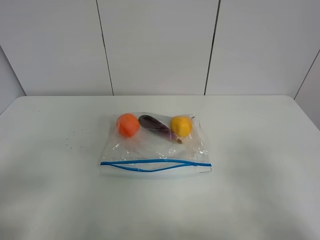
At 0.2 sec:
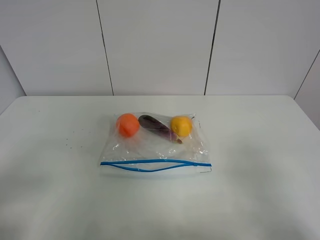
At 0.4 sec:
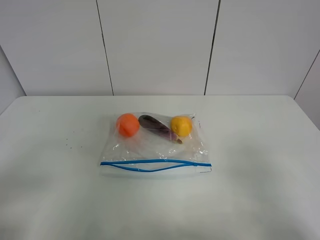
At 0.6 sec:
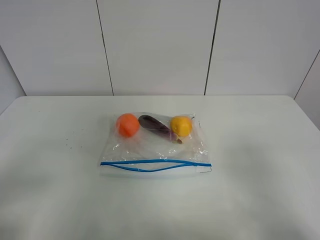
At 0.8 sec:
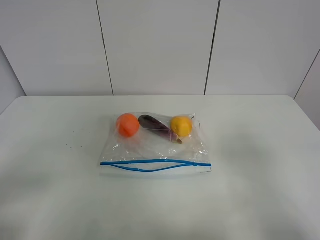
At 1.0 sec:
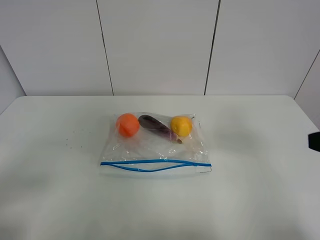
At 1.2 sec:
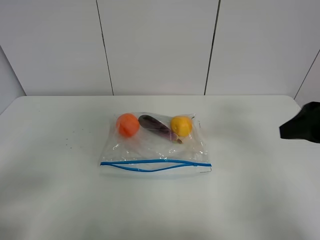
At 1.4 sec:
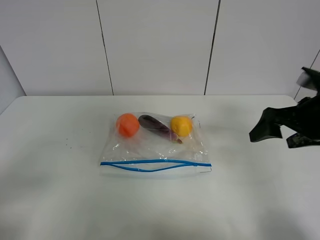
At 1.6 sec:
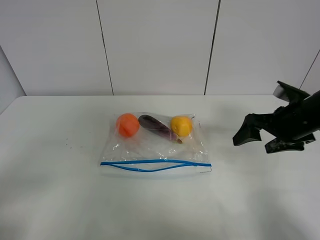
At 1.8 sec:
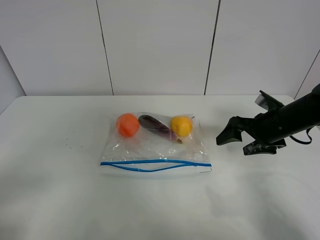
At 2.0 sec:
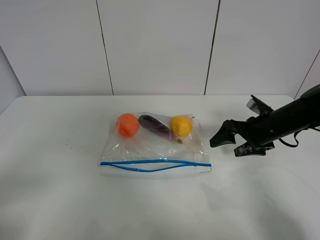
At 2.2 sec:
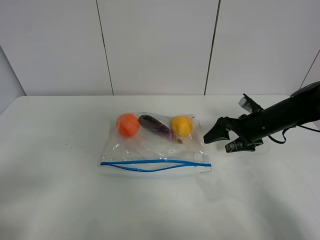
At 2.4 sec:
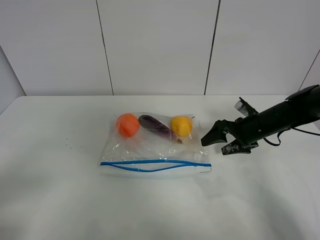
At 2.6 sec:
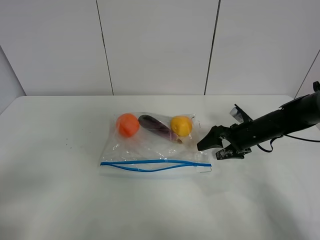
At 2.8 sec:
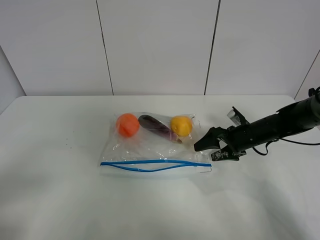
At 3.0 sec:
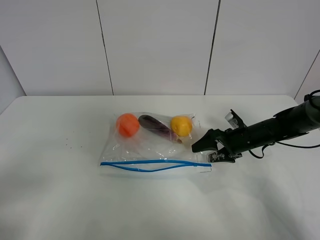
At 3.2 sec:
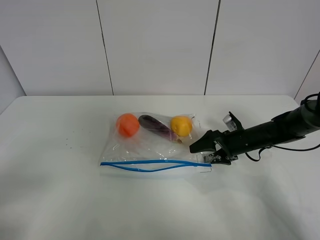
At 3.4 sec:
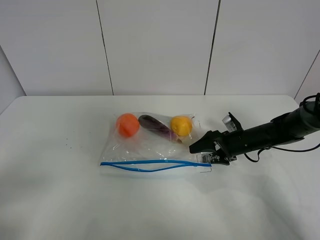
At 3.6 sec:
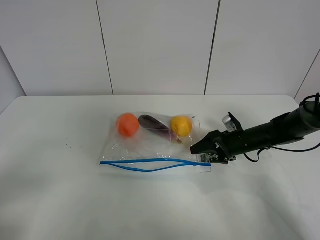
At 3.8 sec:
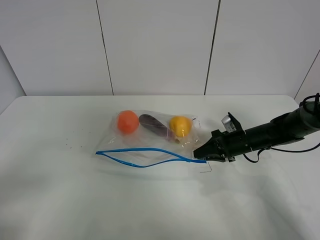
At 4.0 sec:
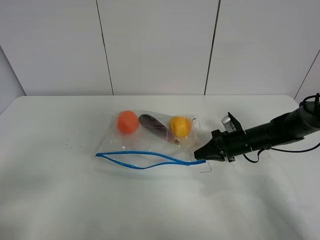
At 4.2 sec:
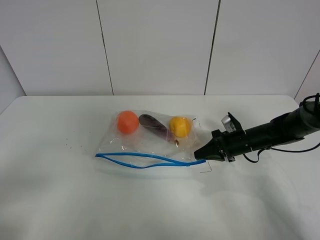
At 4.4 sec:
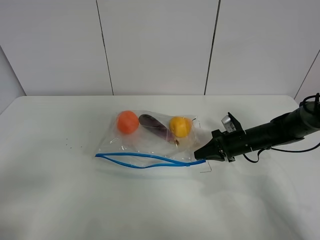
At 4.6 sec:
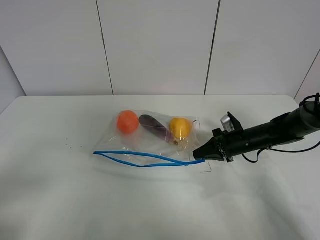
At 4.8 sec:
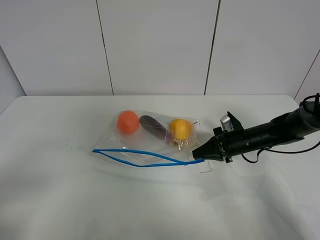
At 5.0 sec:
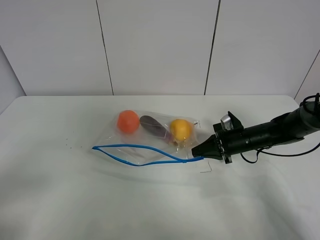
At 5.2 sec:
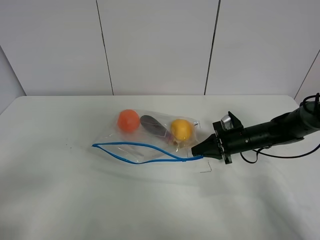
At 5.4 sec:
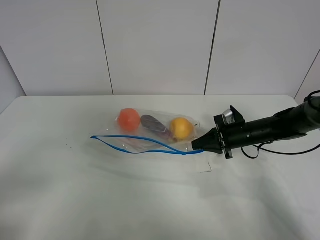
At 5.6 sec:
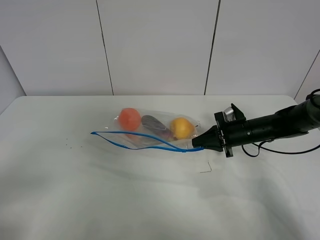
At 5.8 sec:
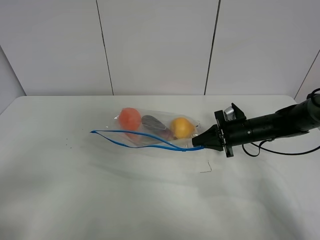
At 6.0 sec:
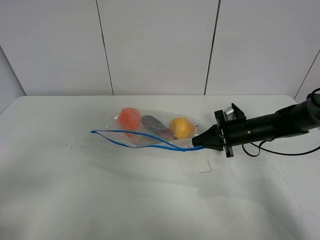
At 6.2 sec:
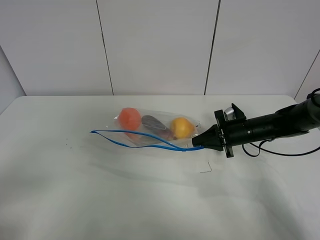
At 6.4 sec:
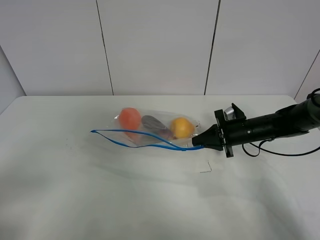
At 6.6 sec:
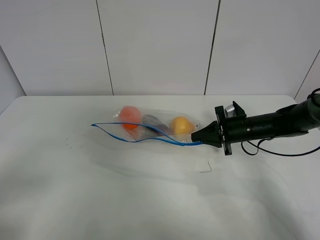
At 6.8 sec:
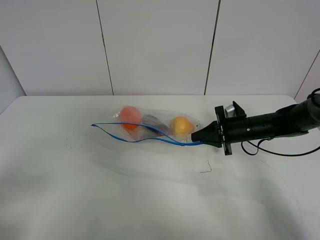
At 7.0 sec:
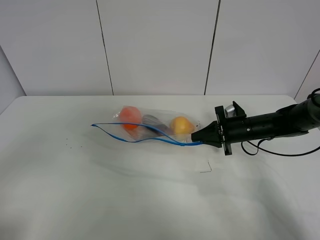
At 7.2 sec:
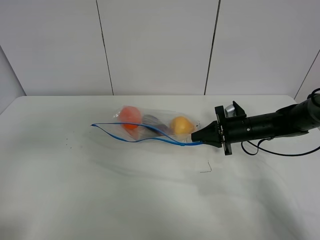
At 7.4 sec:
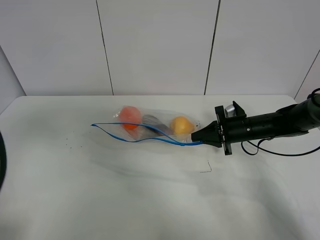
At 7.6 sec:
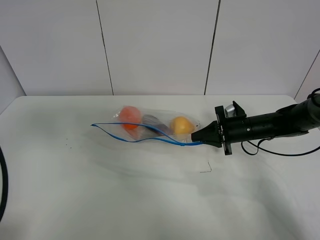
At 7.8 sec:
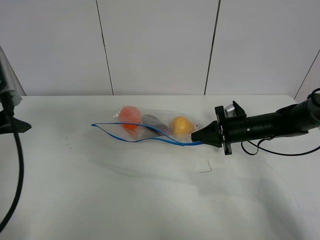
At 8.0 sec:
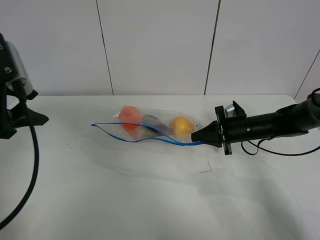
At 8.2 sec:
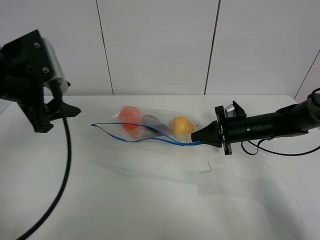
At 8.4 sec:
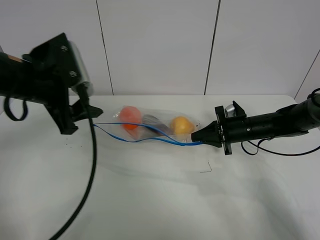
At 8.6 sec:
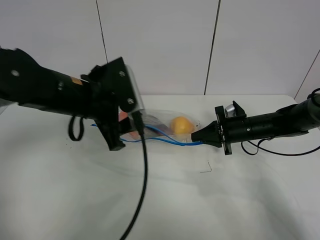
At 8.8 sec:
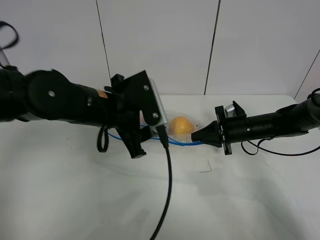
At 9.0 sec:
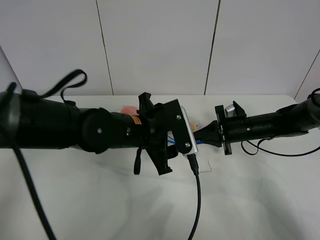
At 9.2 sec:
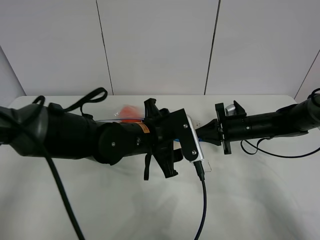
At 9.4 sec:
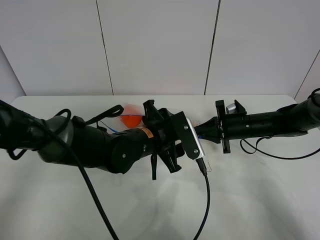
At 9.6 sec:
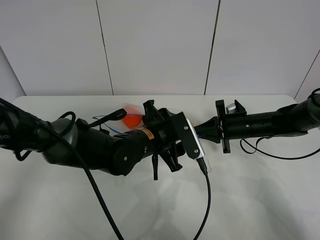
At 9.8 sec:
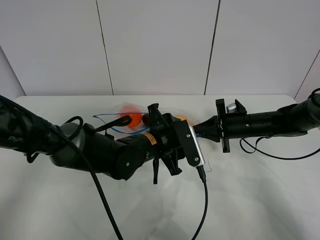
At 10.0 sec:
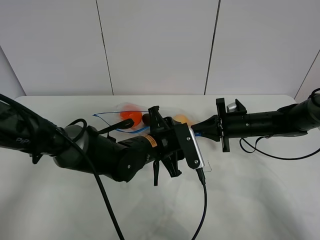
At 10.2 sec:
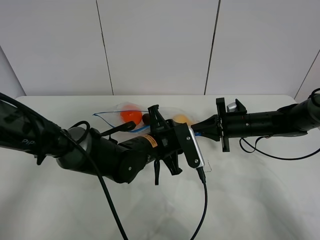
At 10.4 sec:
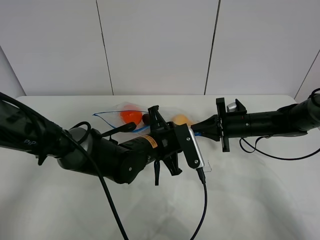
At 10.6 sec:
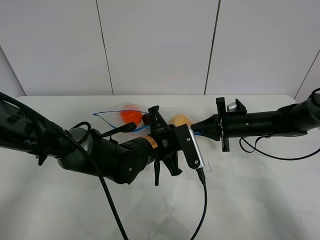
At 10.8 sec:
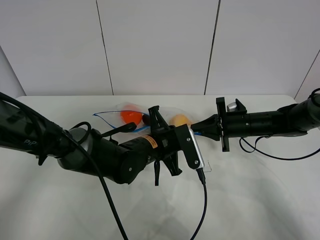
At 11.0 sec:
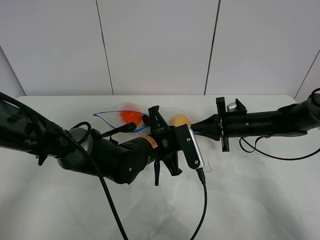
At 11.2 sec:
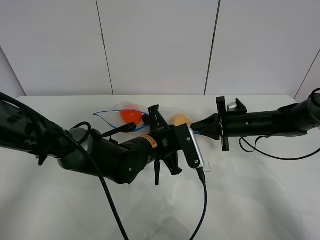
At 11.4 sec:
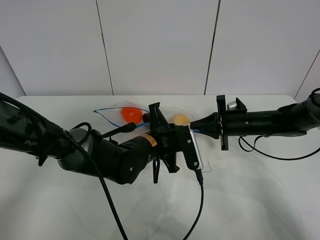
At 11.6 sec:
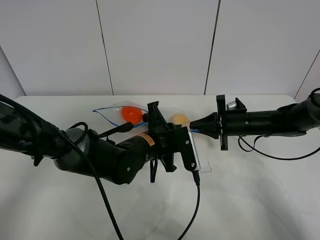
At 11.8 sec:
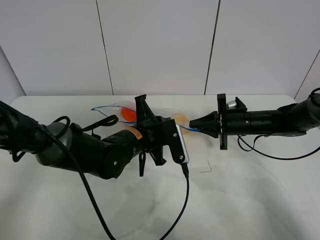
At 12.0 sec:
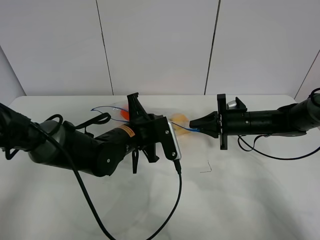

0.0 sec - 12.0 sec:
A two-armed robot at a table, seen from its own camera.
Step, 0.0 sec - 4.0 sec: Grasp the fruit bag with right gripper.
Step, 4.2 sec - 5.6 sec: Lift the fruit bag with your right gripper.
0.0 sec - 1.6 sec: The right gripper moves forward, roughly 25 cm.
1.6 sec - 3.0 sec: The right gripper heads downward and forward, covering approximately 15 cm.
3.0 sec - 4.4 sec: The right gripper closes its fingers.
4.4 sec - 6.0 sec: The grippers make only small movements.
6.0 sec - 7.6 sec: The left gripper is displaced forward by some 20 cm.
7.6 sec - 9.0 sec: The left gripper goes about 30 cm to the right and downward.
9.0 sec - 10.4 sec: The left gripper goes some 5 cm downward, and closes its fingers.
10.4 sec - 12.0 sec: The left gripper moves to the left, roughly 5 cm.

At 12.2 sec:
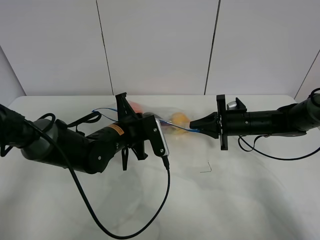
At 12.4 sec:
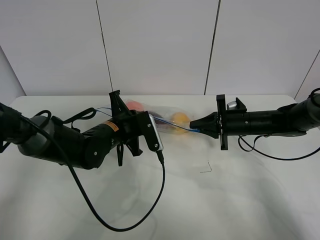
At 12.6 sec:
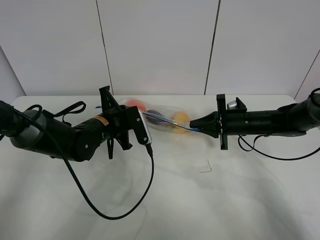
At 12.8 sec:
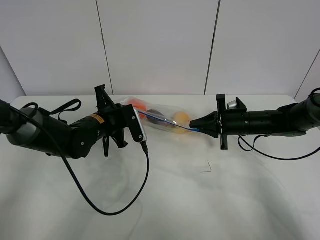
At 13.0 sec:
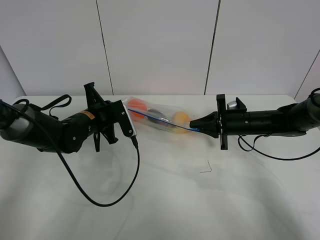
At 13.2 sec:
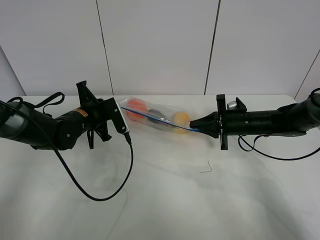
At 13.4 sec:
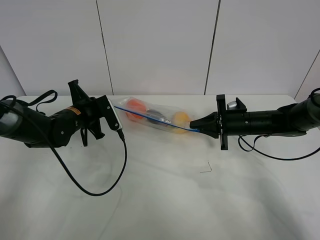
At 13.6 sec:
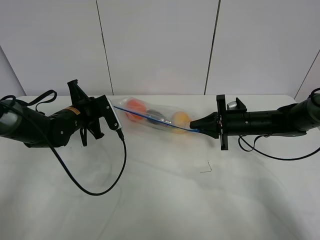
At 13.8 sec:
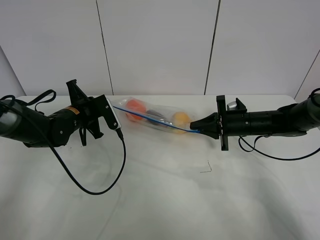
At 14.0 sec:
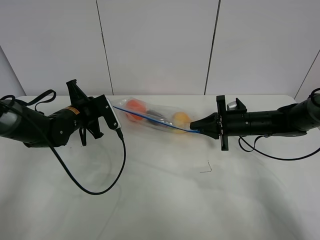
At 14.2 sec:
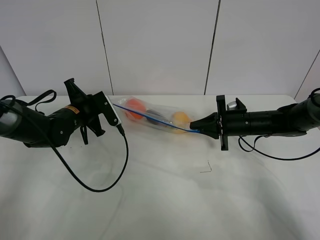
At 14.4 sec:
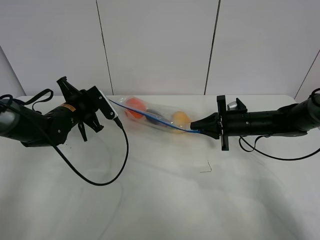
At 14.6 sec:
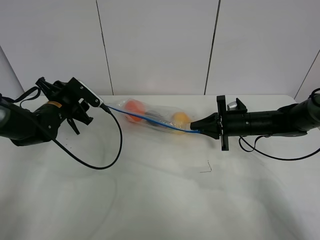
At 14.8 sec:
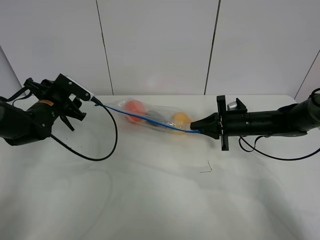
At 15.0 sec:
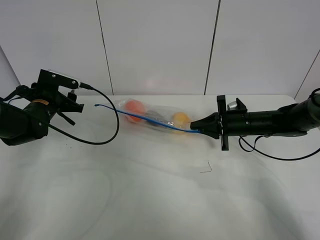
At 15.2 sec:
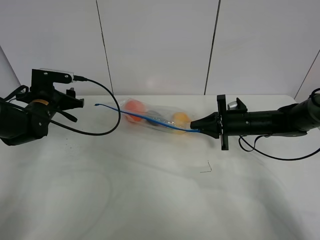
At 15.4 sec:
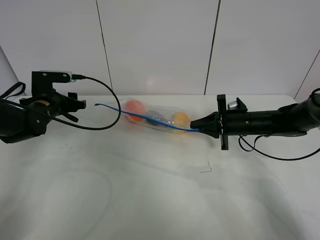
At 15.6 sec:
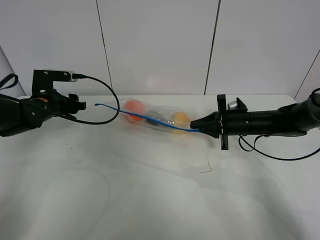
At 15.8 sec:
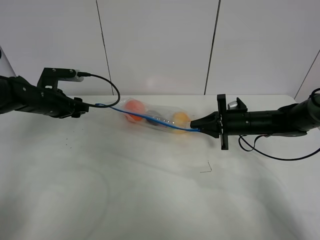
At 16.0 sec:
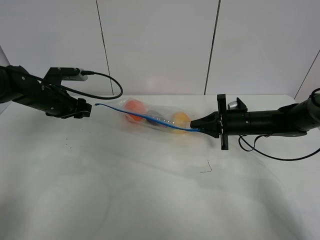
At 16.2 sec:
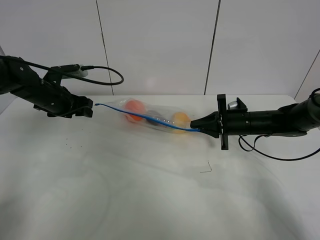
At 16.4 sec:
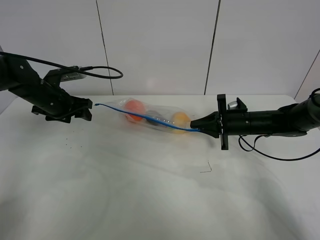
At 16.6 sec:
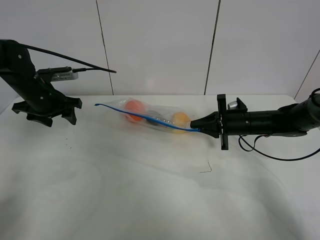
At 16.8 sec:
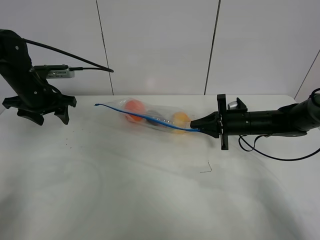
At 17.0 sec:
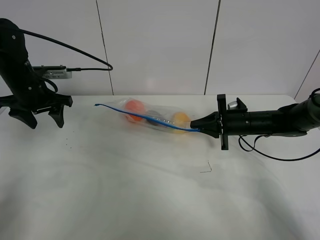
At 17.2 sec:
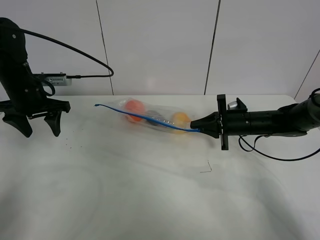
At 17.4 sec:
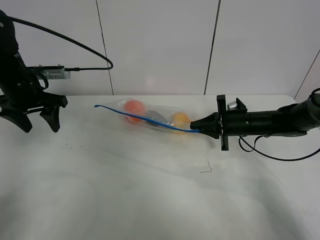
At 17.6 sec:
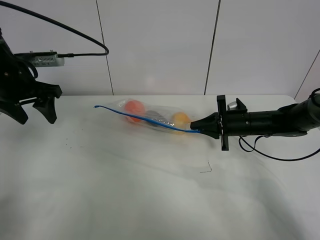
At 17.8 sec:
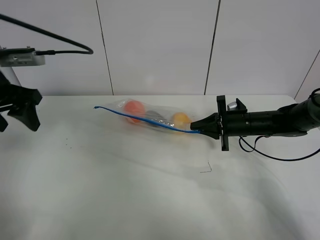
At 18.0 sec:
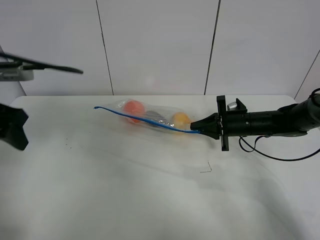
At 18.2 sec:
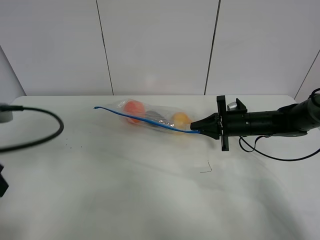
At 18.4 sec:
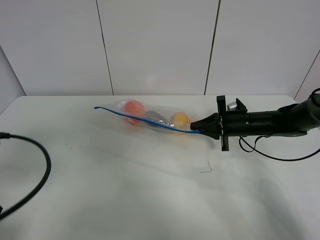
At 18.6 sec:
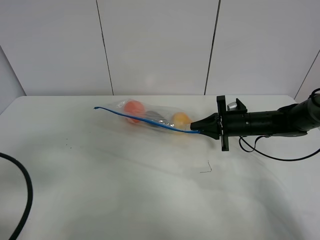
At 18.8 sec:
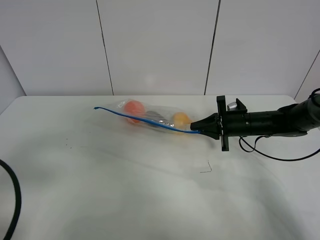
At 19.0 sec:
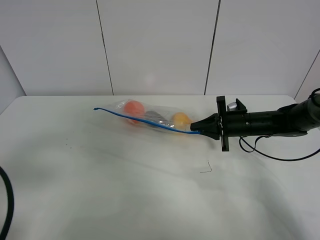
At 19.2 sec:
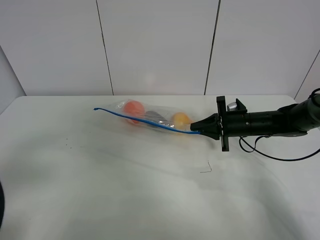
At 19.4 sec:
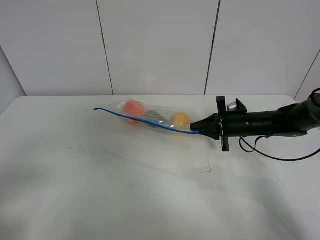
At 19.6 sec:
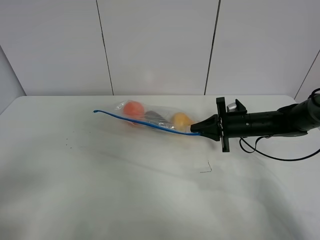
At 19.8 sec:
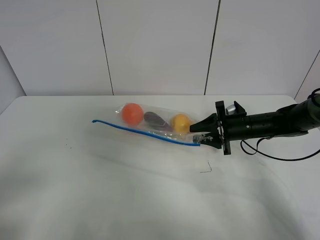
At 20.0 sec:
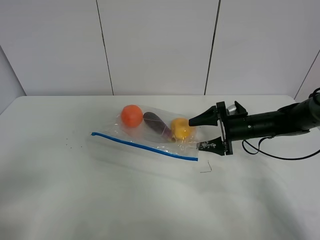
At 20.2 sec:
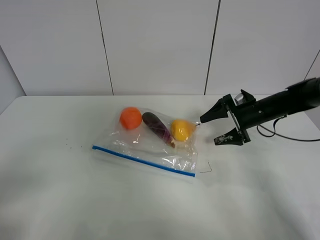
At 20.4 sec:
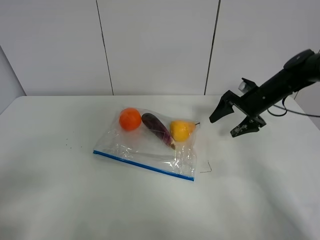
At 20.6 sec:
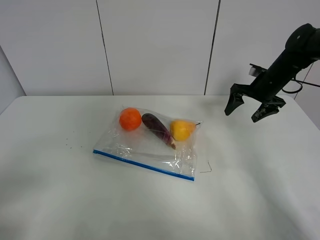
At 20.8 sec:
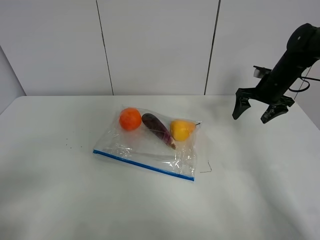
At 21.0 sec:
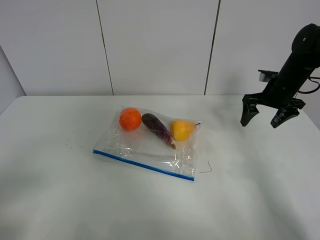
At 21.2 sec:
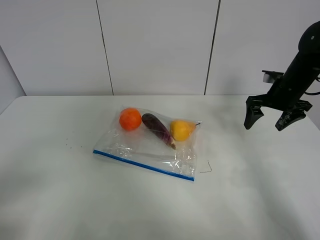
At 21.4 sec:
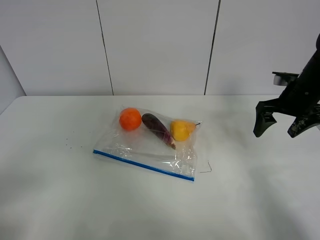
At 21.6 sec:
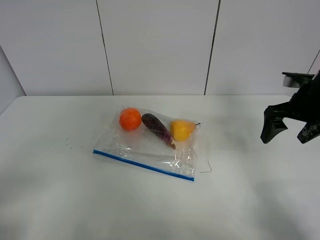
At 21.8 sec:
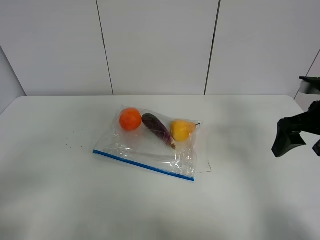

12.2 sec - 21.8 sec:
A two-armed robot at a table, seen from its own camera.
Step, 12.2 sec - 14.4 sec: Pull the fruit bag with left gripper.
12.2 sec - 13.8 sec: The left gripper heads to the left and forward, covering about 15 cm.
13.8 sec - 15.4 sec: The left gripper heads to the left, covering some 5 cm, and opens up.
15.4 sec - 17.0 sec: The left gripper travels upward by approximately 5 cm.
17.0 sec - 18.6 sec: The left gripper heads backward, covering about 30 cm.
18.6 sec - 20.2 sec: The right gripper ends up some 5 cm from where it was, and opens its fingers, while the left gripper heads backward, covering about 10 cm.
20.2 sec - 21.8 sec: The right gripper shifts roughly 20 cm backward and upward.
